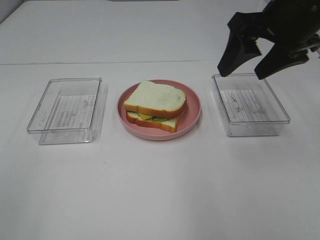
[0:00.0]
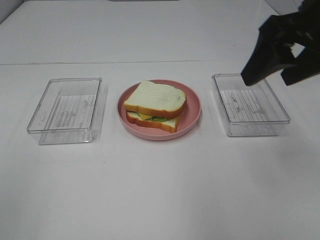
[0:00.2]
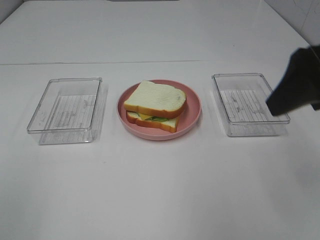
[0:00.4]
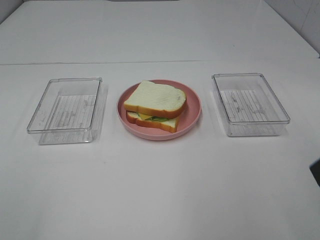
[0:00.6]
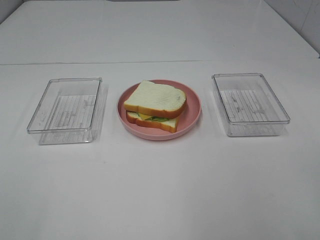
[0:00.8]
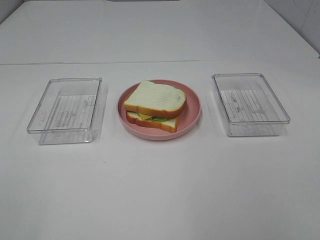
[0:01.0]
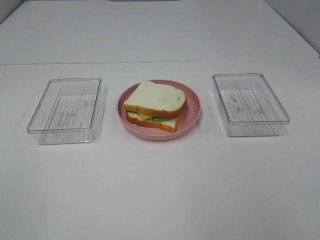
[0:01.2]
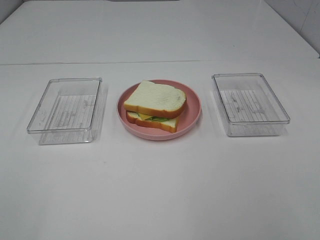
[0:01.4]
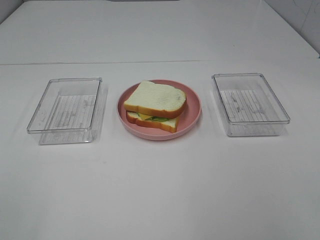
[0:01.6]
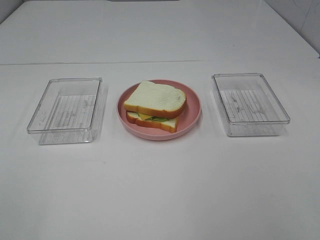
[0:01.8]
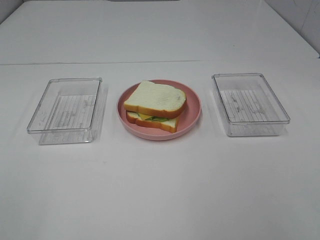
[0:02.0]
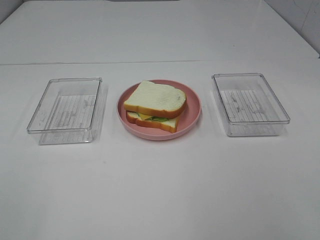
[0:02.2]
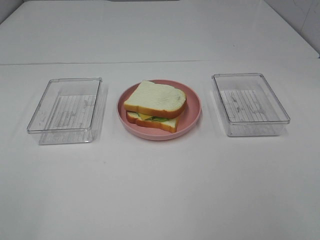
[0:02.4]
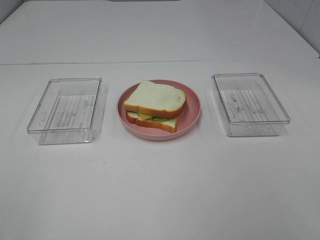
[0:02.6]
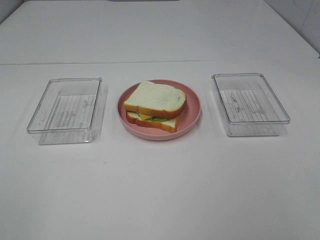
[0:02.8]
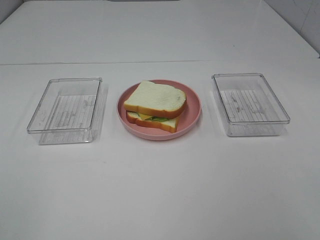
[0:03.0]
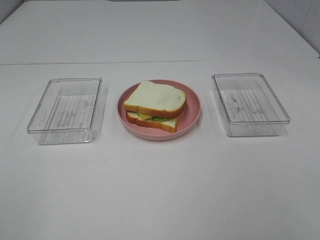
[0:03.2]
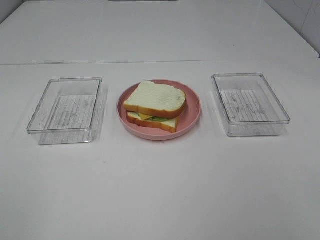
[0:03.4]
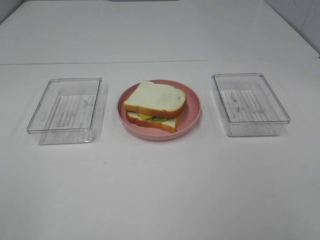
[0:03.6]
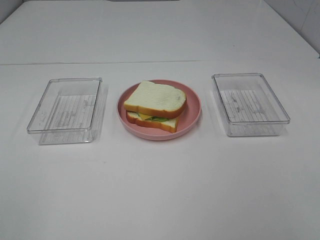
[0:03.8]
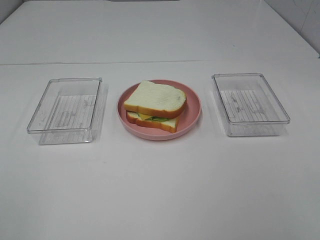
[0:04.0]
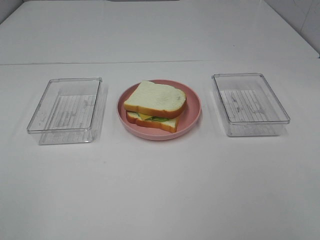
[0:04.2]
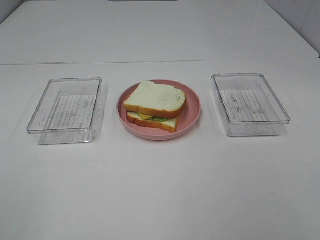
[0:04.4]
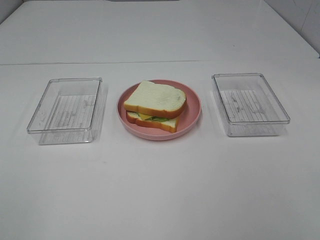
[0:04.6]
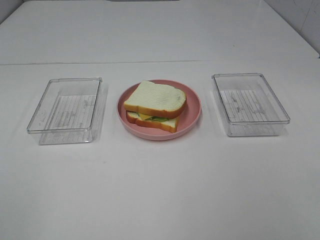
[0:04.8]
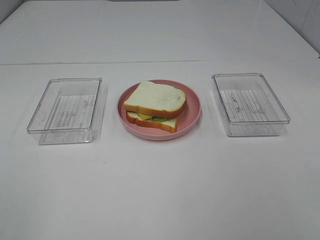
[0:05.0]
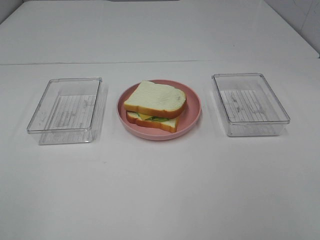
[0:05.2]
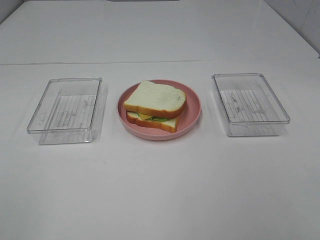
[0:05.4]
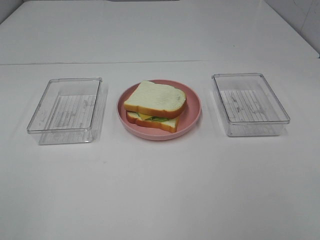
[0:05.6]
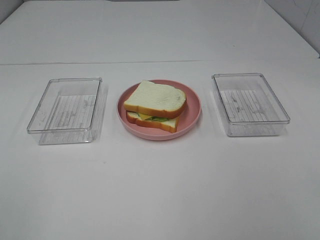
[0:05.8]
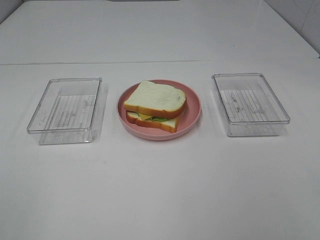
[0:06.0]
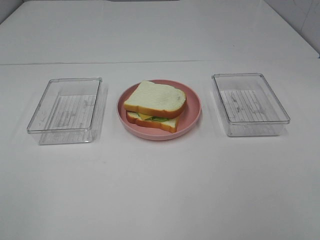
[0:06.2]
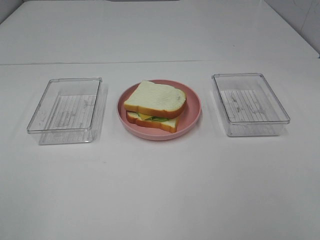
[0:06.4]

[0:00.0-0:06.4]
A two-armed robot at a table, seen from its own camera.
Task of the whole recording: Make sandwiches.
0:00.0 to 0:01.6: The right gripper moves backward, roughly 30 cm.
0:04.8 to 0:06.4: Both grippers stay about where they are.

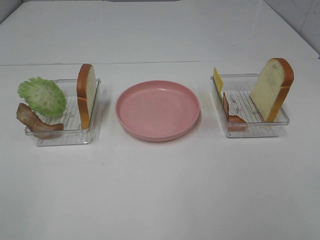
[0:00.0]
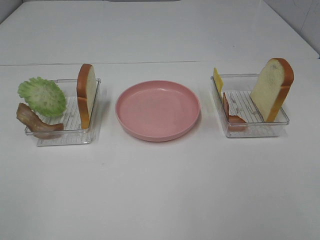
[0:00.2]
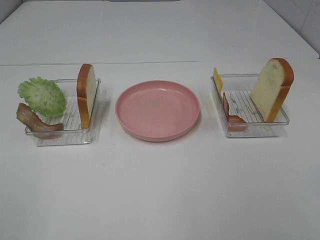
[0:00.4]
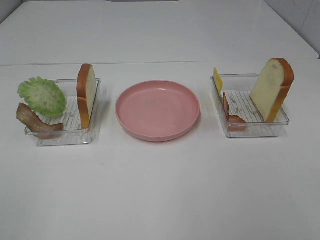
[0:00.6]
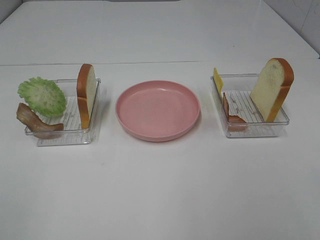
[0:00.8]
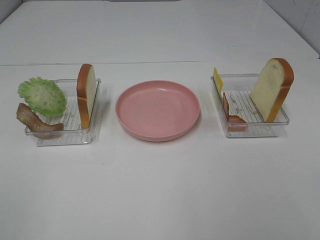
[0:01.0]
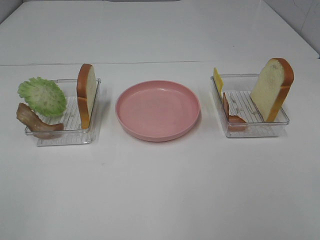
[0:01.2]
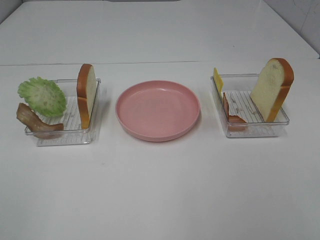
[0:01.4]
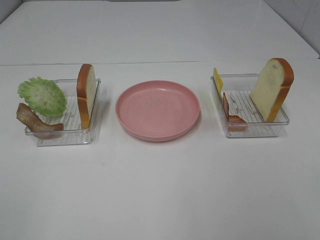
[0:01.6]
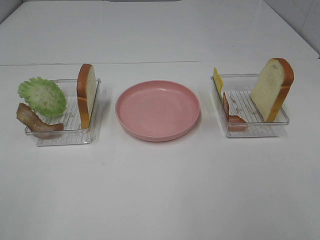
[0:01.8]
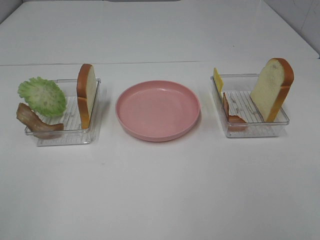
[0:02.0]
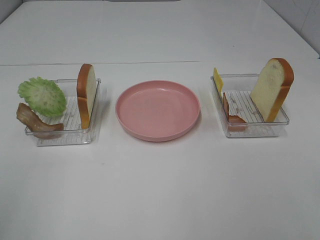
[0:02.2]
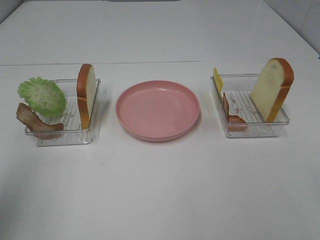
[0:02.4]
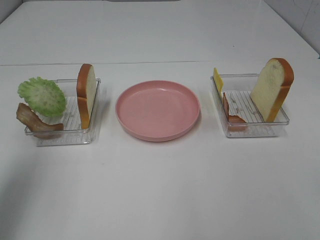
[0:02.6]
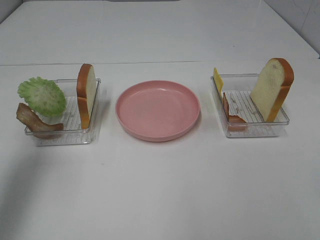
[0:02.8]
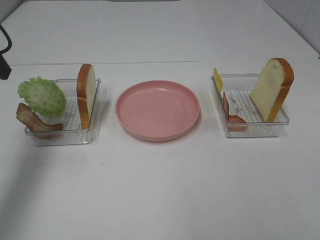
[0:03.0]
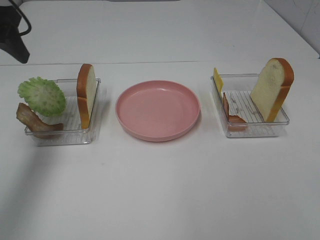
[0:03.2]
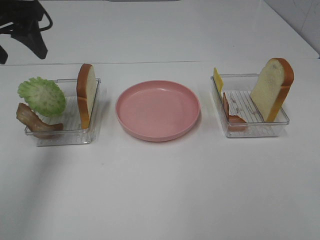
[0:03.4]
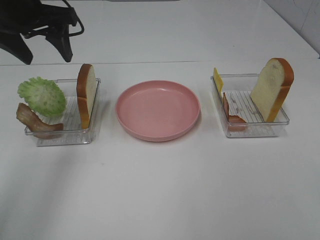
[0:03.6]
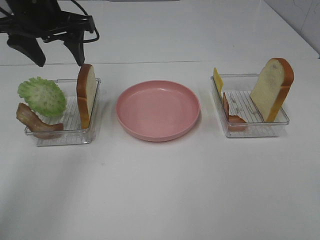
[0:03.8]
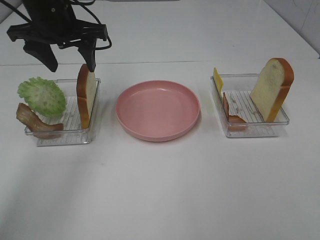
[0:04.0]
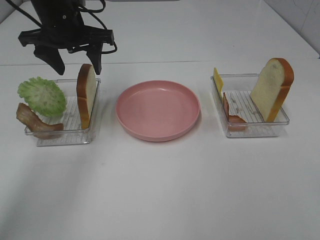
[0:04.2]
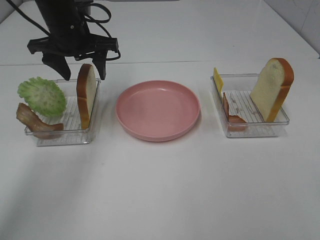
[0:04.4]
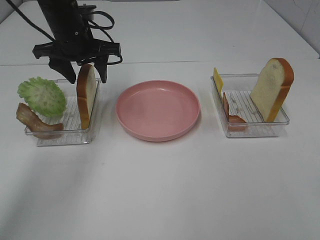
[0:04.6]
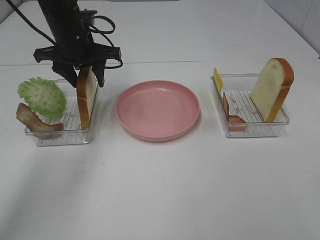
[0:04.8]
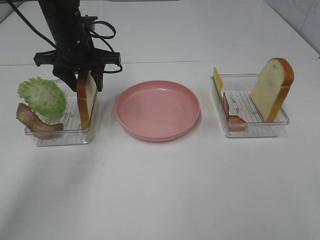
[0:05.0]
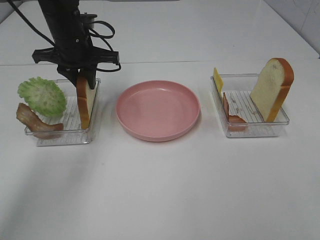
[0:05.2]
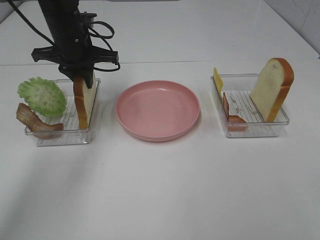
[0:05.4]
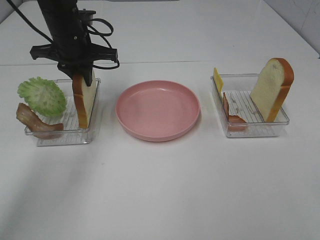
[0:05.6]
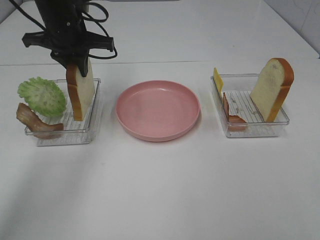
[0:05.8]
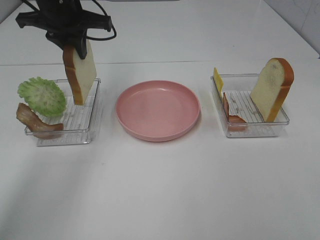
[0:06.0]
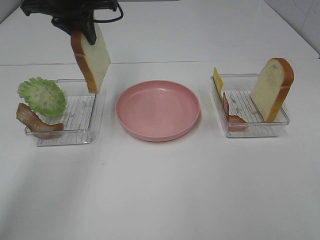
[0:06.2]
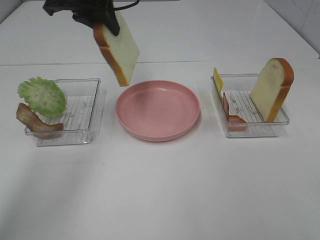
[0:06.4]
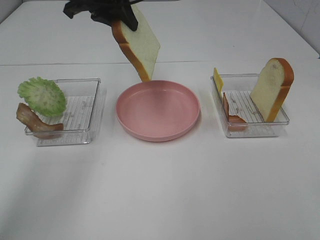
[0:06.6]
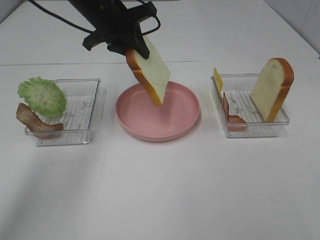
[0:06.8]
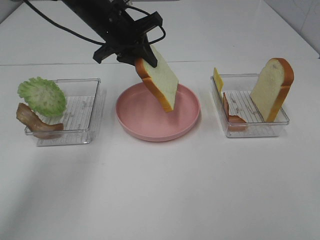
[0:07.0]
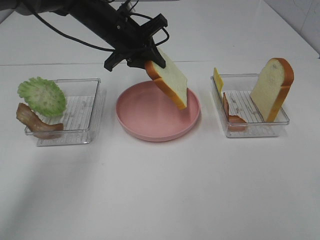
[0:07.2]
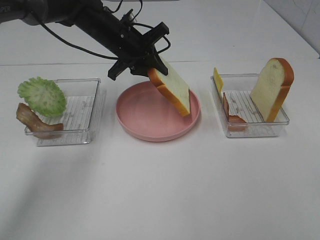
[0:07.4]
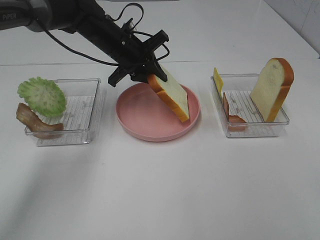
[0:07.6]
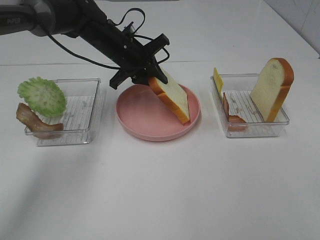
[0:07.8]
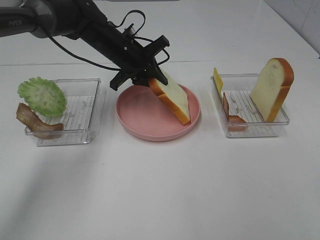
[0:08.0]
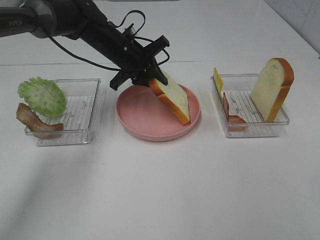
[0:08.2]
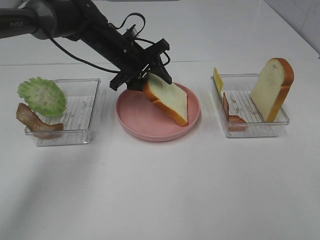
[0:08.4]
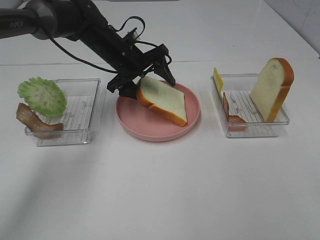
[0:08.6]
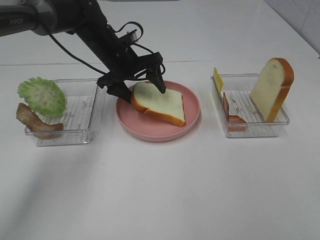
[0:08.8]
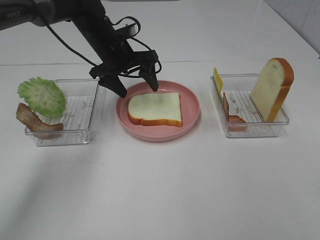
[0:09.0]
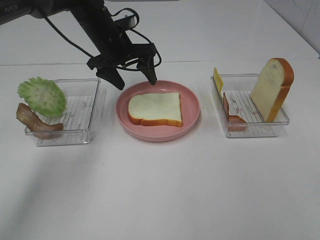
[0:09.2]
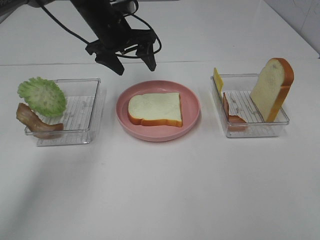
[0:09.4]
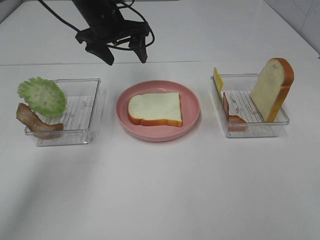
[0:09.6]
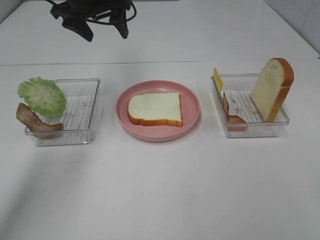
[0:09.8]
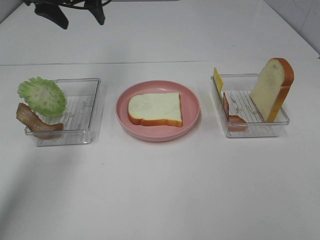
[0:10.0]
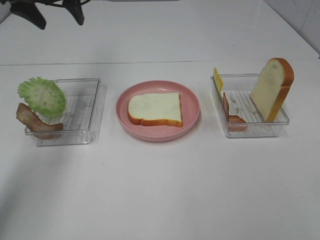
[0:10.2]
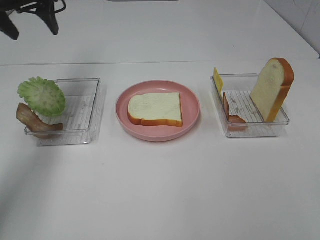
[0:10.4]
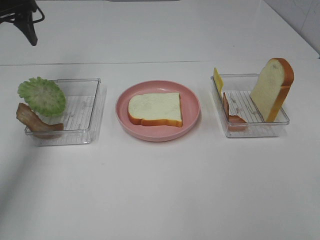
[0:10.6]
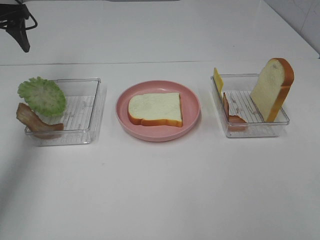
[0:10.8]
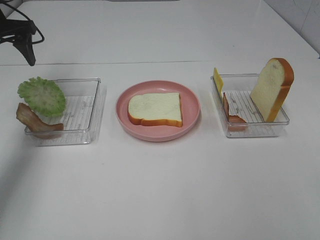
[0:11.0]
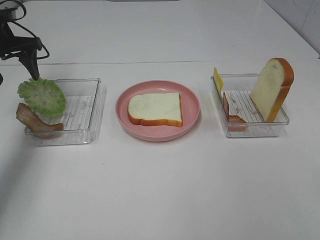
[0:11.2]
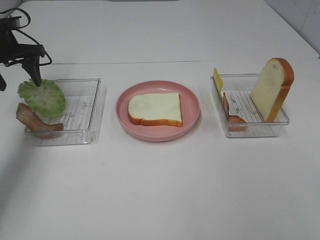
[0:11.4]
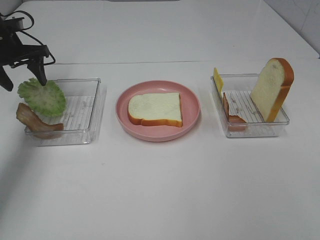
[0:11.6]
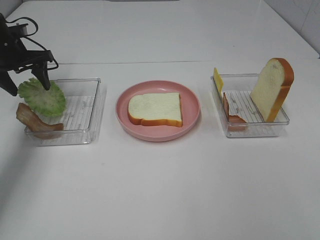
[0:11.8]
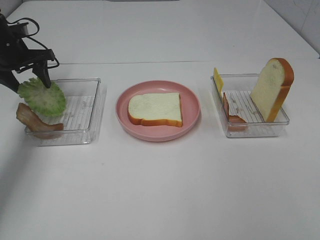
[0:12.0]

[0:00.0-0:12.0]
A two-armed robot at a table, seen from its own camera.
Task of the whole recording: Make sandwiches.
Step, 0:00.0 to 0:05.2: Left hand:grab the bread slice.
Step, 0:05.4 to 0:09.4: Left hand:place the bread slice on the plate.
0:00.0 to 0:01.6: The two grippers keep their place.
0:01.6 to 0:03.0: The left gripper heads forward, covering approximately 30 cm.
0:03.0 to 0:04.4: The left gripper travels forward, to the right and downward by approximately 20 cm.
0:04.4 to 0:06.0: The left gripper shifts some 5 cm upward, and closes its fingers.
0:06.0 to 0:07.6: The left gripper heads downward and to the right, covering approximately 15 cm.
0:07.6 to 0:09.0: The left gripper opens.
0:09.0 to 0:10.4: The left gripper goes approximately 20 cm to the left and upward.
0:10.4 to 0:12.0: The left gripper is displaced downward by approximately 15 cm.

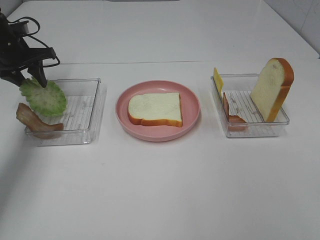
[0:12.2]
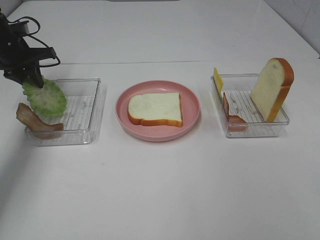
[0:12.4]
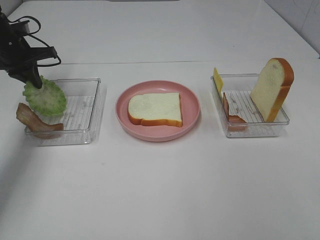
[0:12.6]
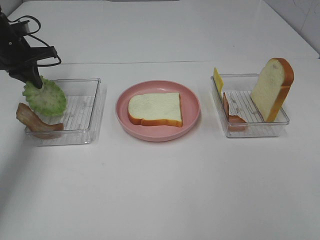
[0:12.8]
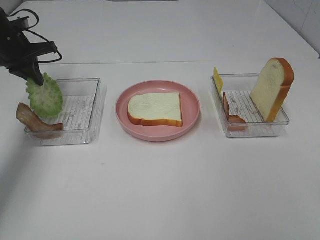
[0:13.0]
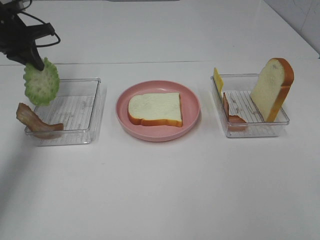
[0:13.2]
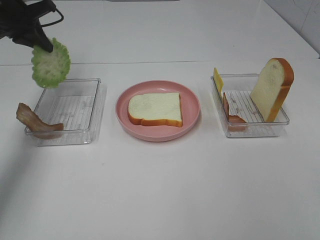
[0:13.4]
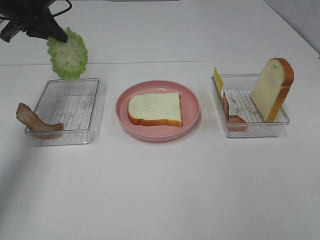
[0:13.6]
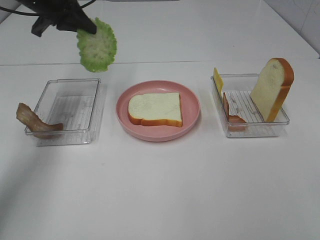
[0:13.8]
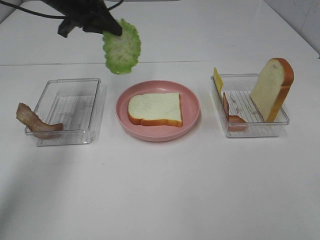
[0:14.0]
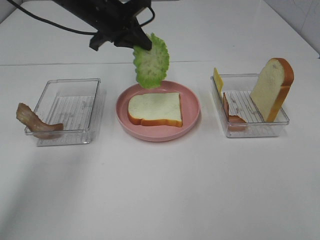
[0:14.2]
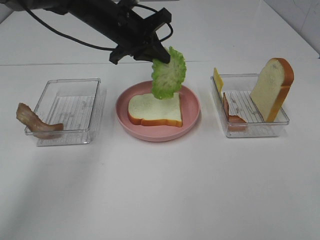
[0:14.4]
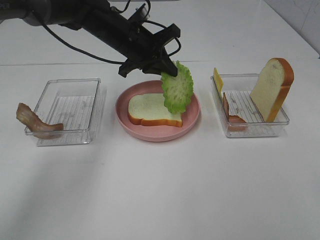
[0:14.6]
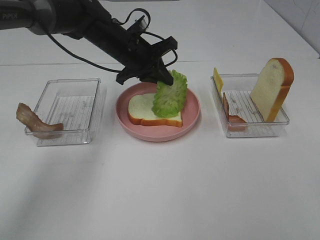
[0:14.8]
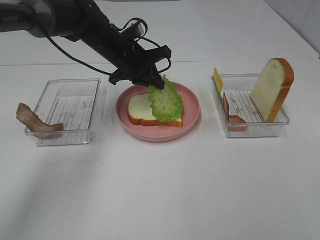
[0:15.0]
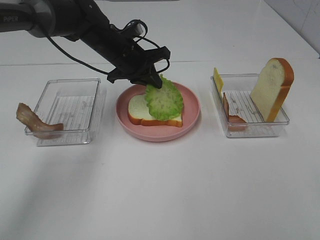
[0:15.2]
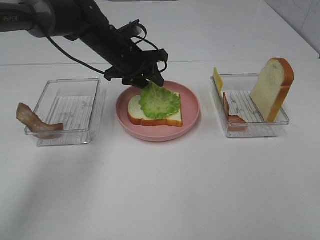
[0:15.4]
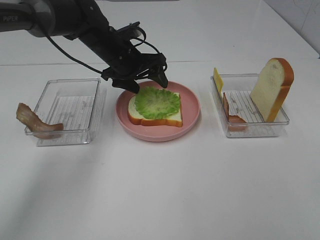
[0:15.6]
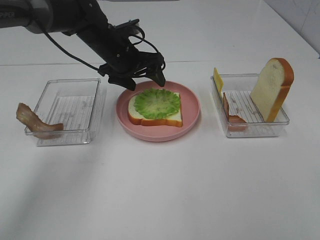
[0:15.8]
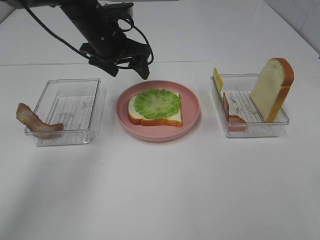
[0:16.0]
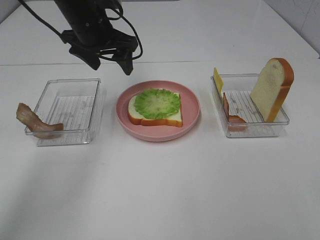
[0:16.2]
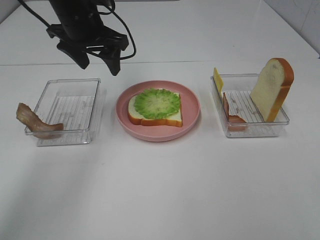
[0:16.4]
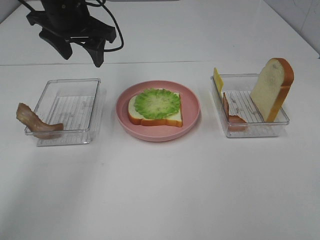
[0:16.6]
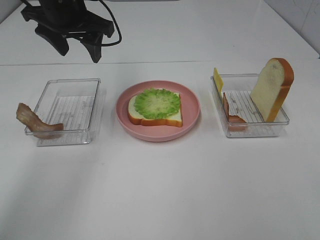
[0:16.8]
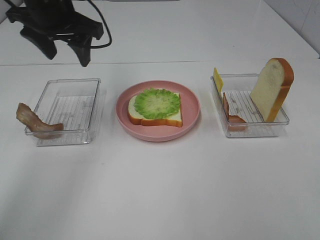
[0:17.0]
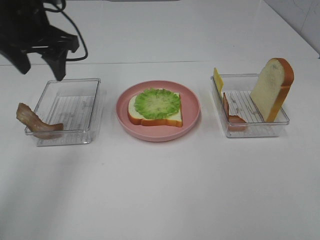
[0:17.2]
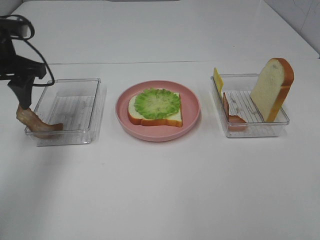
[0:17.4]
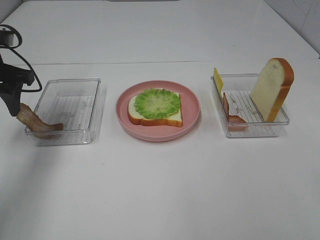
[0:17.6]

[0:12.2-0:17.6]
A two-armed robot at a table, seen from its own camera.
Task of the whole recording: Make sandwiches.
Step, 0:12.8 to 0:15.8: Left hand:place the lettuce slice on the bread slice.
0:12.2 to 0:13.6: The left gripper travels upward by approximately 10 cm, and closes its fingers.
0:13.6 to 0:15.0: The left gripper goes about 20 cm to the right and downward.
0:15.0 to 0:16.2: The left gripper travels upward by about 10 cm, and opens up.
0:16.2 to 0:17.6: The left gripper travels to the left and backward by approximately 20 cm.
